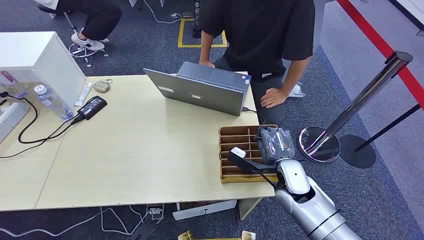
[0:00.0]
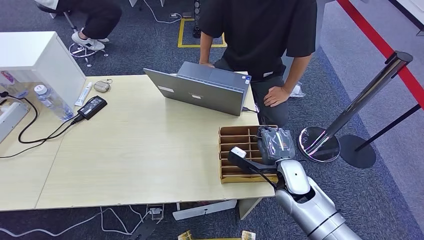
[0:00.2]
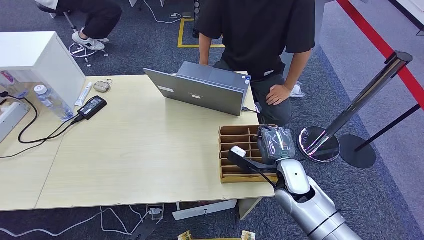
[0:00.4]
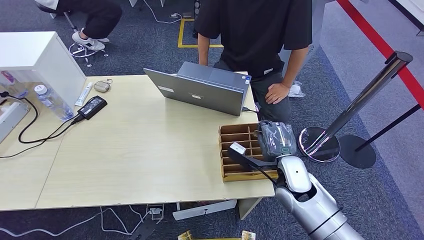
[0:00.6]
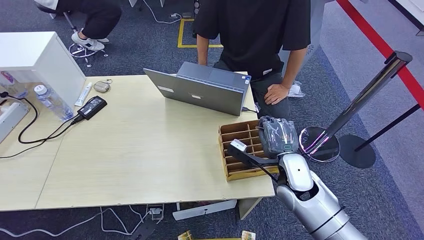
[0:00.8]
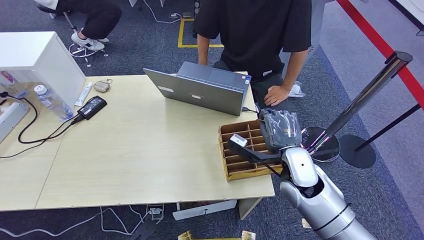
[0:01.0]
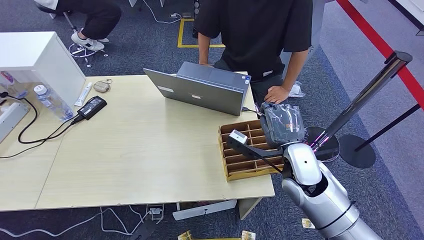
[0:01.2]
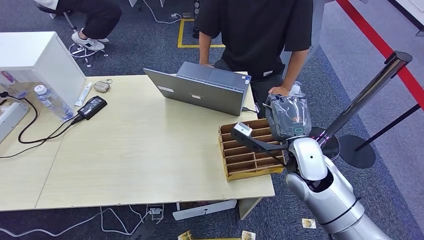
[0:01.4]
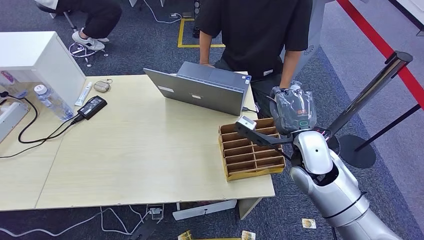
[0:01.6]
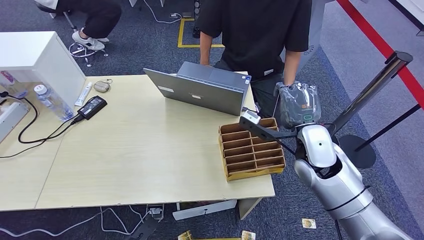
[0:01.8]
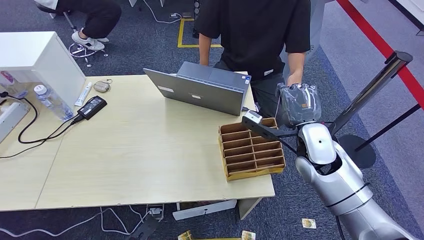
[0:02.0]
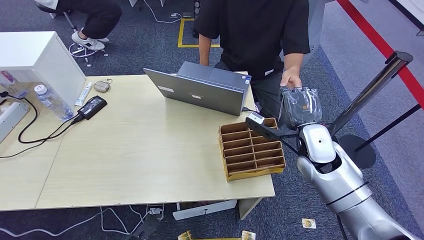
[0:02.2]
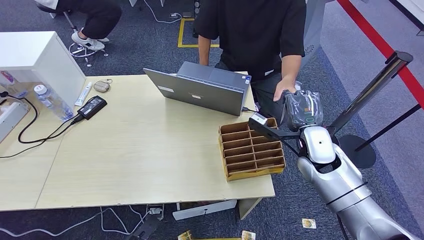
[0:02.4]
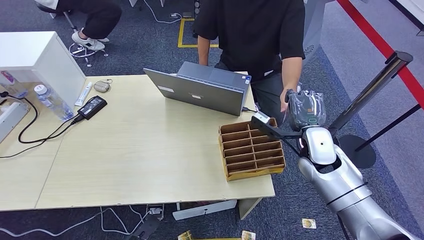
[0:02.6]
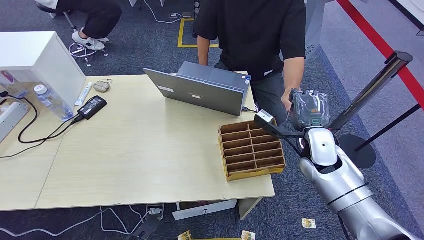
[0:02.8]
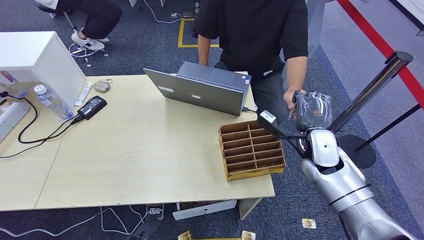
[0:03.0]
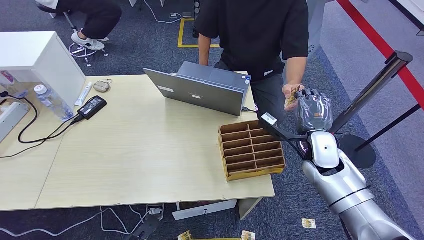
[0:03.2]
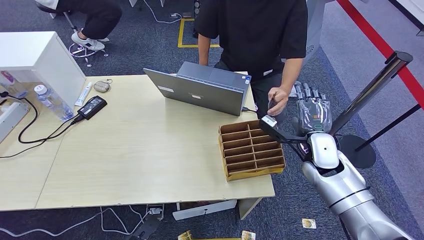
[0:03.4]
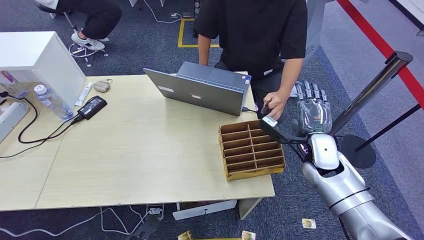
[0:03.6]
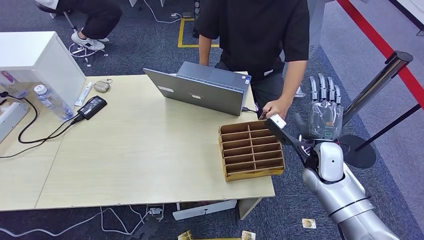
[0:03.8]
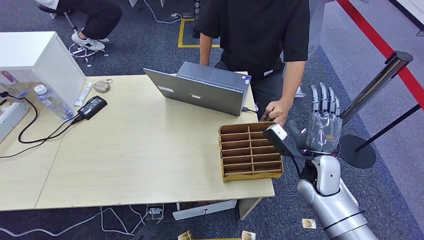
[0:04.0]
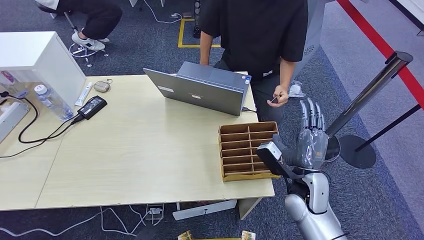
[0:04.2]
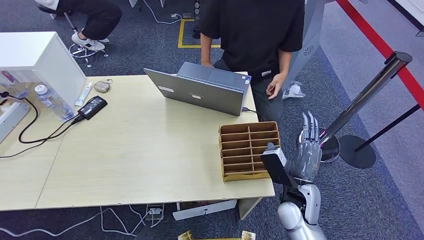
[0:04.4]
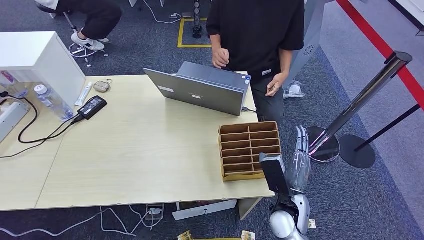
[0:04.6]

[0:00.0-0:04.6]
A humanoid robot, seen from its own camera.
Step, 0.0 to 1.4 s: Pick up the room card from the card holder.
Step, 2.0 to 4.6 s: Hand the room card to the target.
1.6 to 3.0 s: The right hand shifts approximately 5 cm to the right.
3.0 to 4.6 s: The right hand moves backward, downward and to the left, approximately 15 cm.

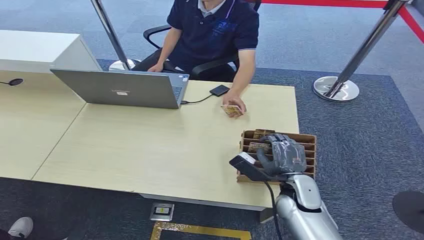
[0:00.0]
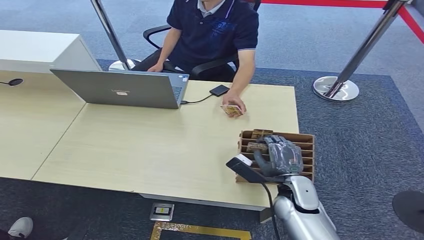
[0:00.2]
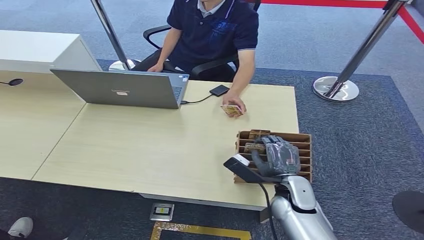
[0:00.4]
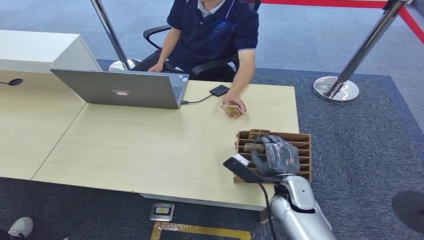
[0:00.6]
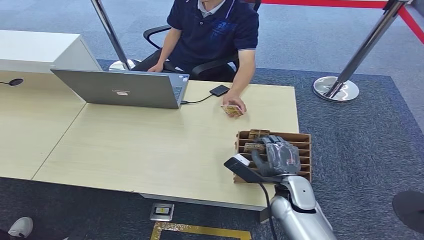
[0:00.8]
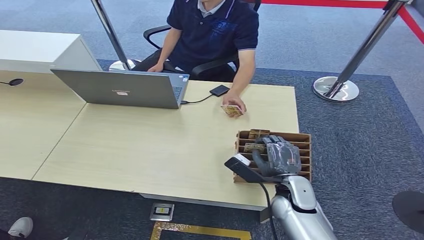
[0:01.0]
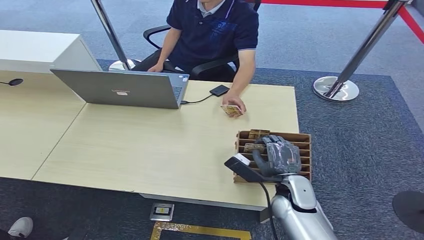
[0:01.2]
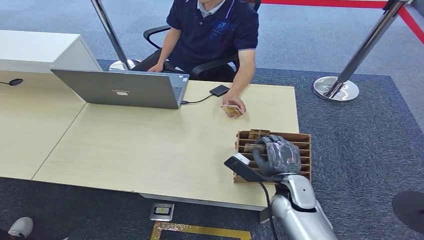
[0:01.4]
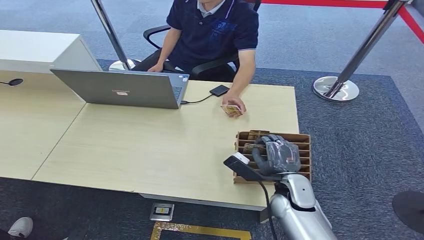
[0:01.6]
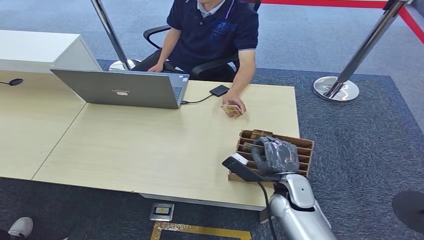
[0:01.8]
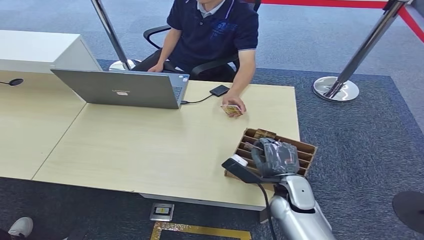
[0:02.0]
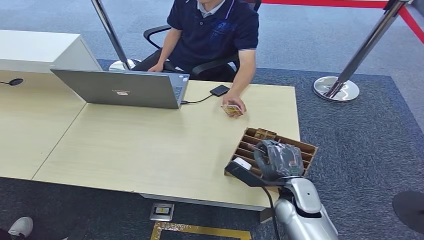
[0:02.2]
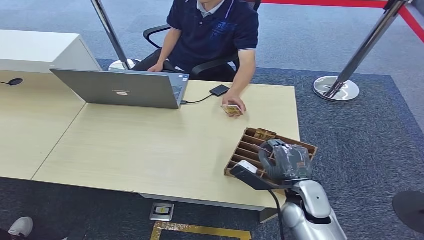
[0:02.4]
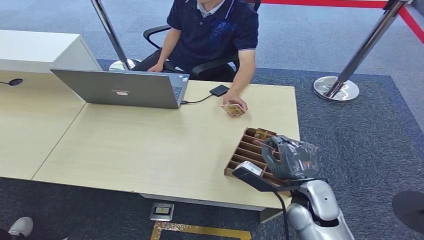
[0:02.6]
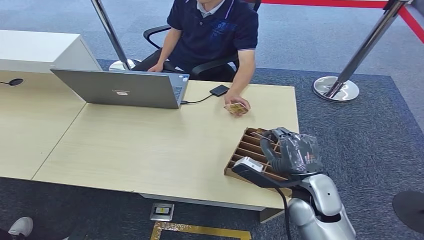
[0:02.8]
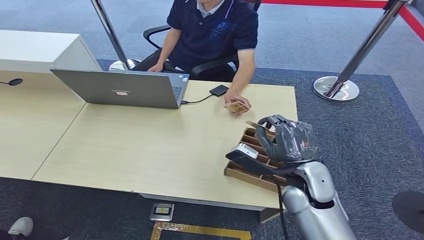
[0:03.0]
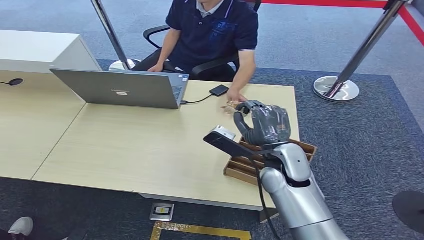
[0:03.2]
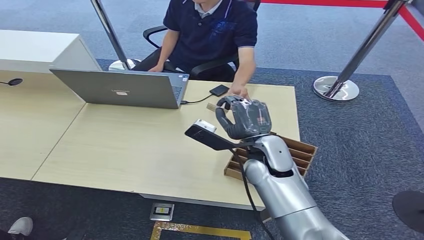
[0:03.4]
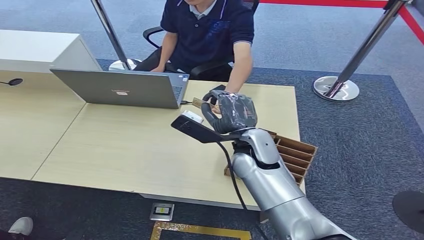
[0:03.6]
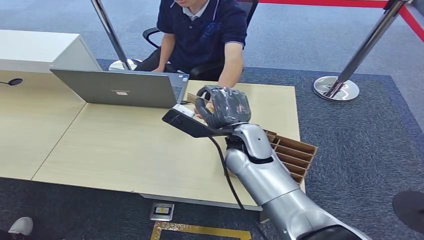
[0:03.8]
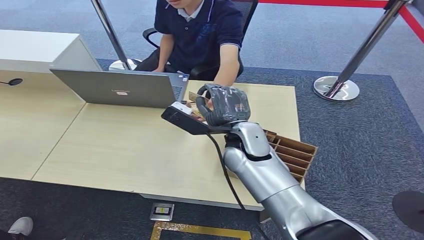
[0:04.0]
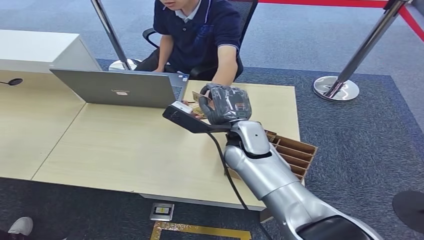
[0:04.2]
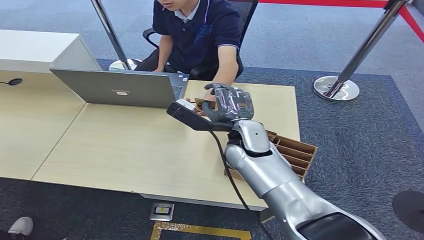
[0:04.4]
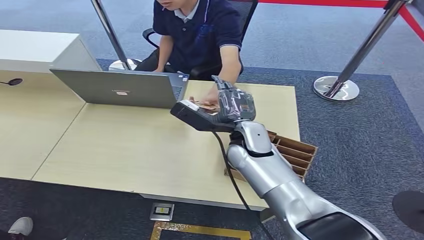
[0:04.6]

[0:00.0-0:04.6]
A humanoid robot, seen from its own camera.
Step, 0.0 to 3.6 s: Pick up the room card from the card holder.
Step, 3.8 to 4.4 s: Hand the room card to the target.
1.6 to 3.0 s: The right hand moves upward, some 10 cm.
3.0 to 4.6 s: The right hand heads to the left and forward, covering some 10 cm.

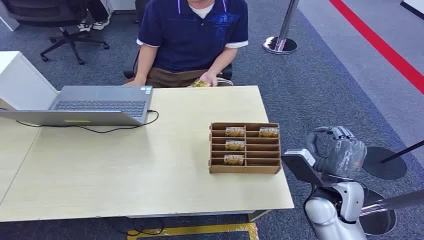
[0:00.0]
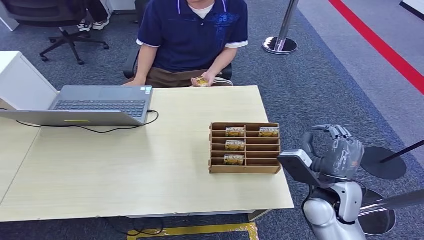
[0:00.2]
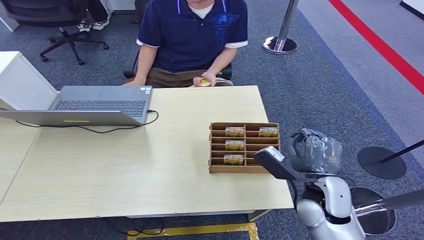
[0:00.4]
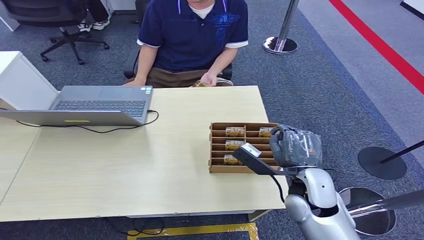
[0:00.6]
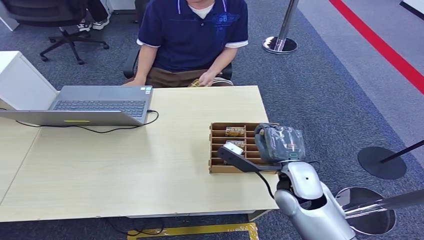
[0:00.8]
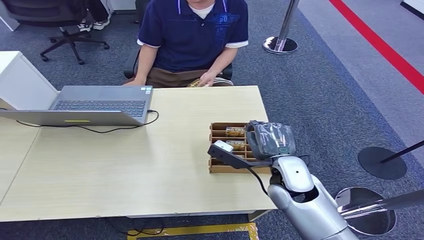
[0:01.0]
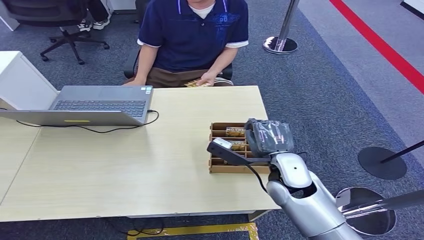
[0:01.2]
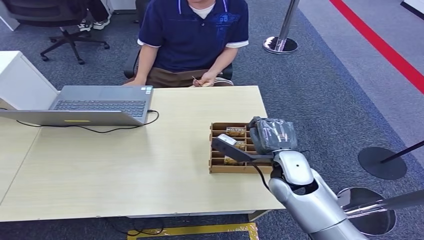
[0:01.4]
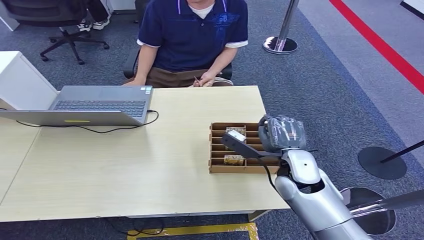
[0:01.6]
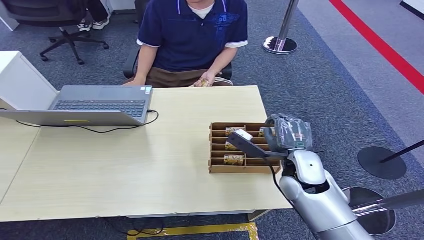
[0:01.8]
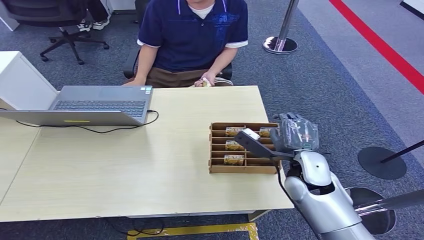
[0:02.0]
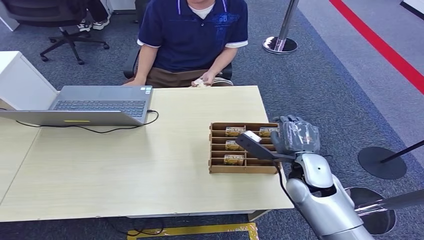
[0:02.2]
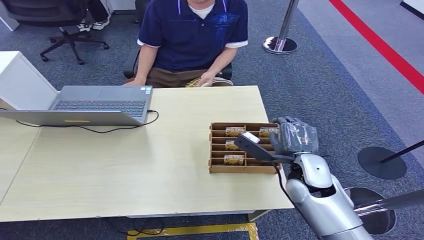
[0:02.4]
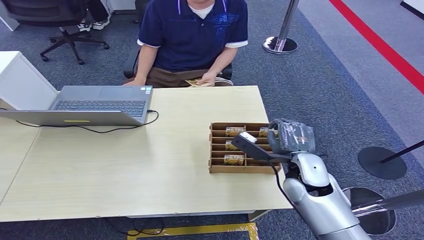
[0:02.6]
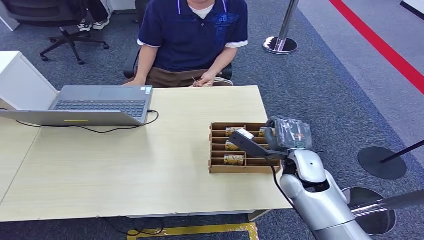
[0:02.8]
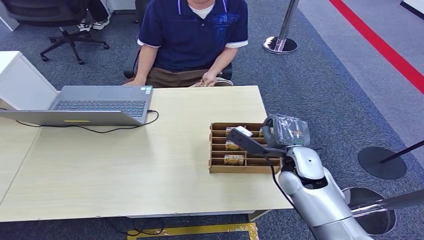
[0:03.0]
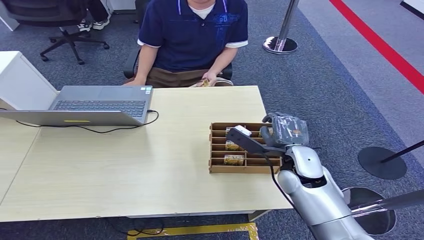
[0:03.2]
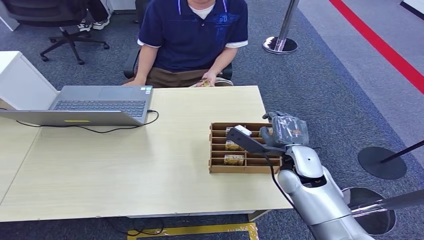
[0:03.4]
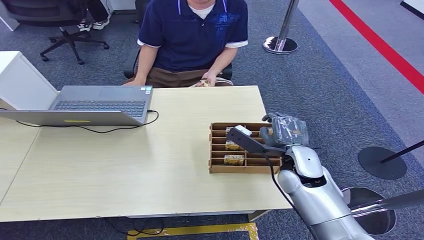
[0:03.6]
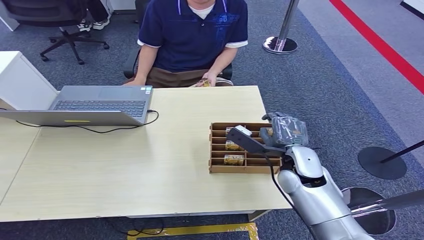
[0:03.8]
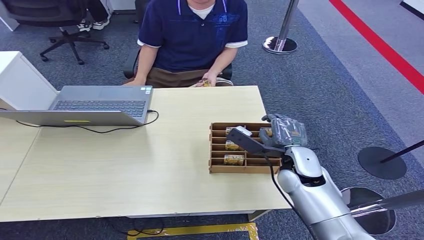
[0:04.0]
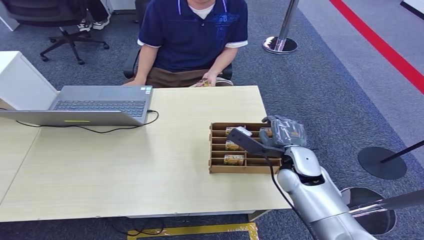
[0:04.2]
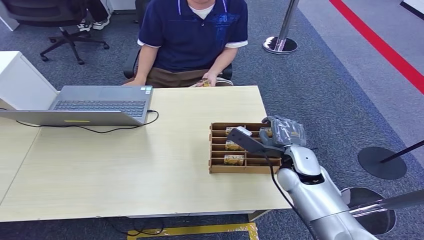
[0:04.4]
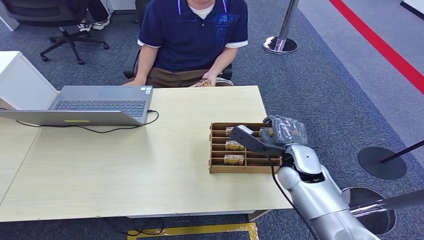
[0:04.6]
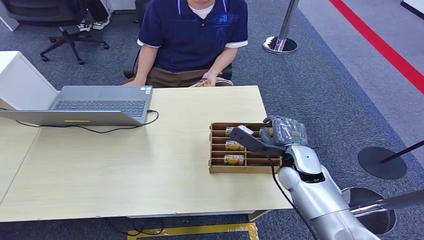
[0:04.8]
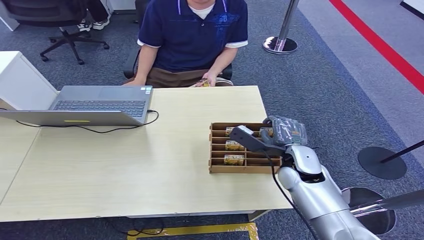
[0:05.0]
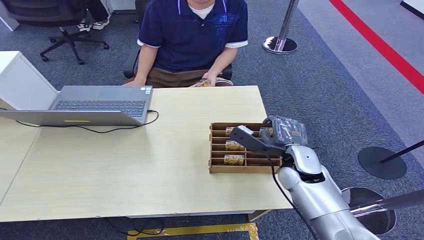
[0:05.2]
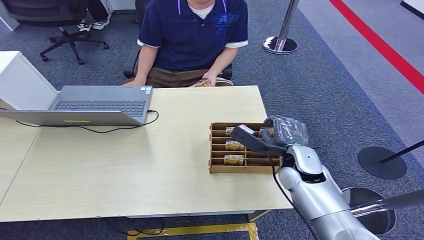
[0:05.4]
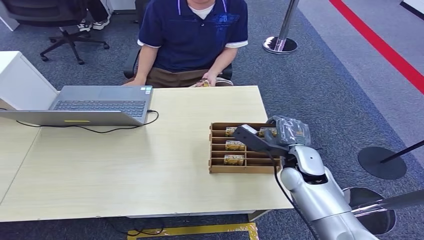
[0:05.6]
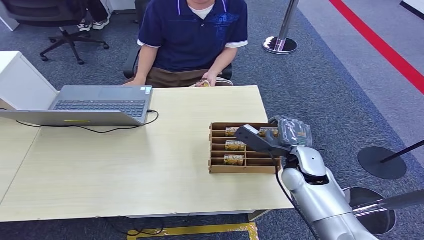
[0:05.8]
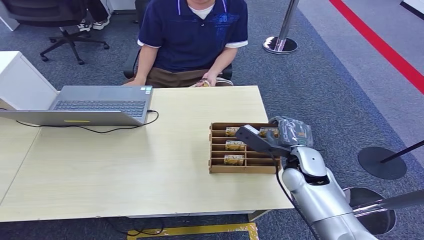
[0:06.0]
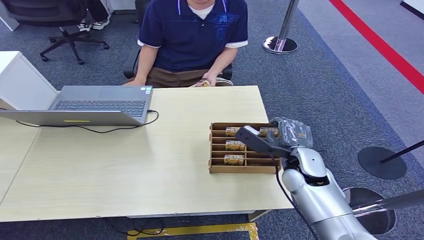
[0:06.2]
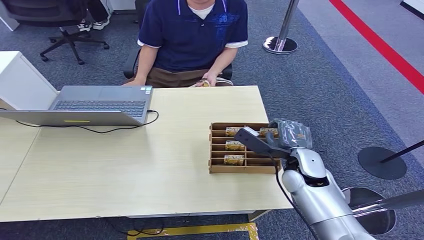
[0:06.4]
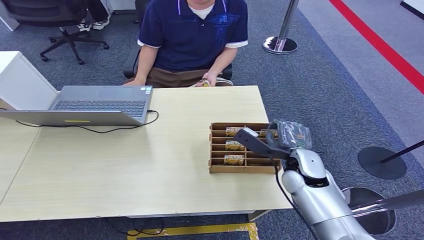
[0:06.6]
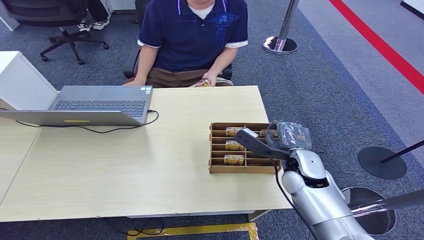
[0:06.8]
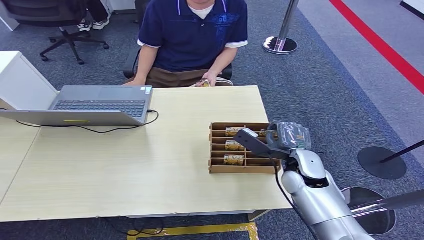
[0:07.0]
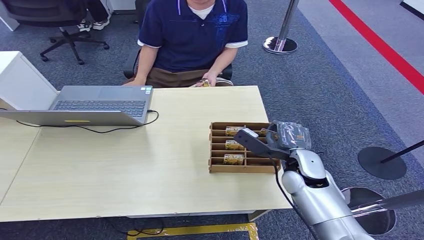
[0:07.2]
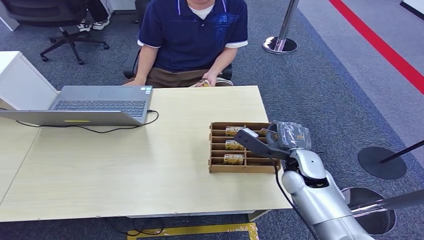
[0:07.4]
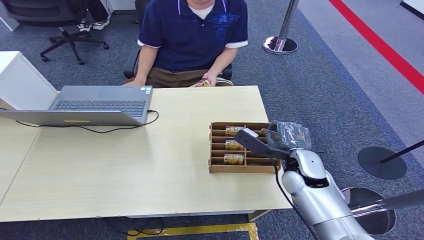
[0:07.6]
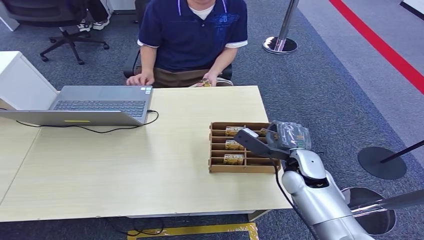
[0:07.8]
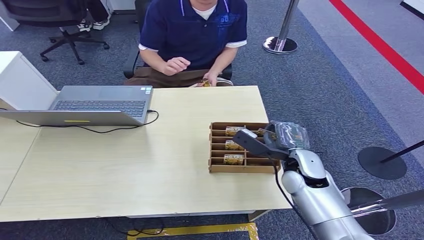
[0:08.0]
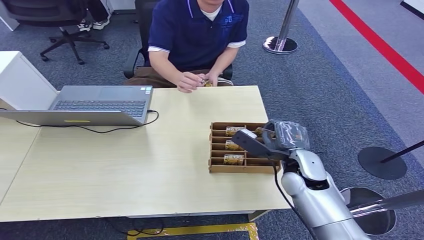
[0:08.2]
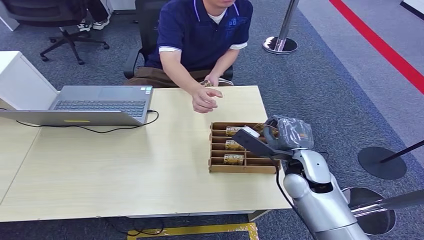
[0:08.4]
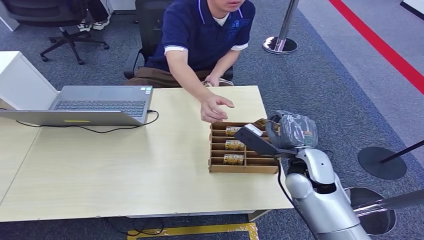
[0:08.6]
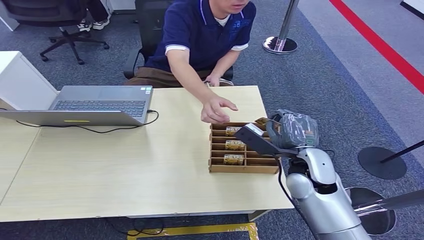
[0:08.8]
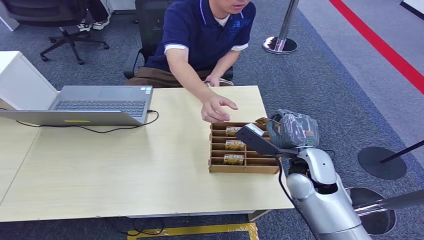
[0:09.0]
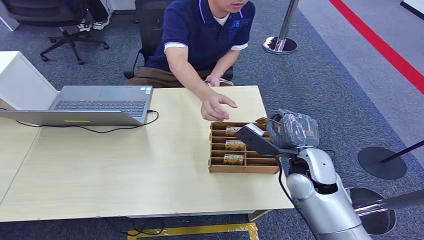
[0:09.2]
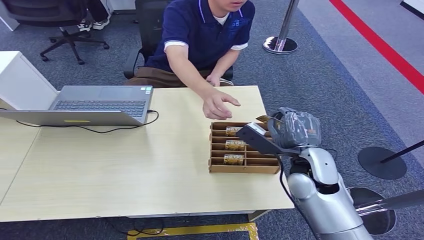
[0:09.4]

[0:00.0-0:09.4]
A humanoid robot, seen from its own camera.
Step, 0.0 to 8.0 s: Pick up the room card from the card holder.
1.6 to 4.8 s: The hands make only small movements.
4.8 to 6.2 s: Both hands stay put.
6.2 to 7.8 s: Both hands stay about where they are.
7.8 to 9.4 s: The right hand shifts approximately 5 cm upward.
